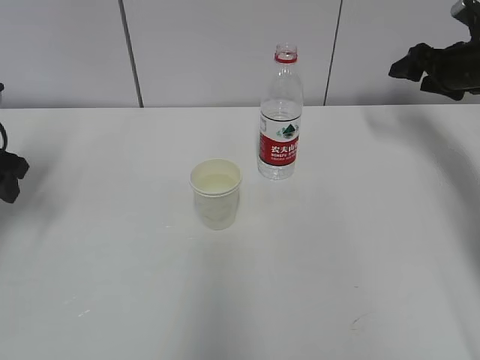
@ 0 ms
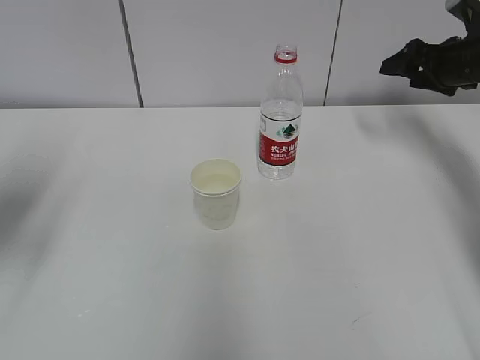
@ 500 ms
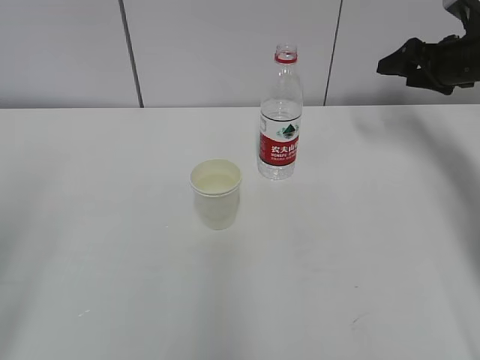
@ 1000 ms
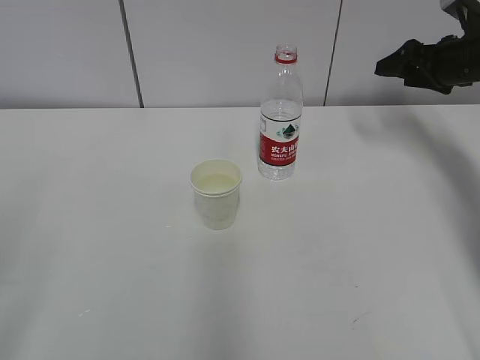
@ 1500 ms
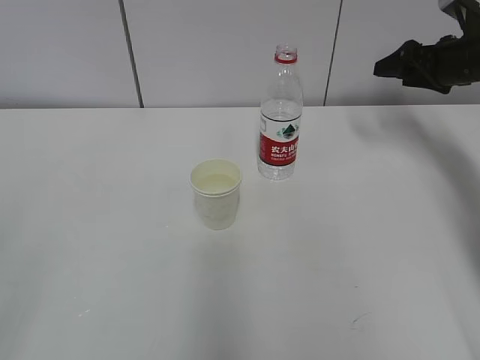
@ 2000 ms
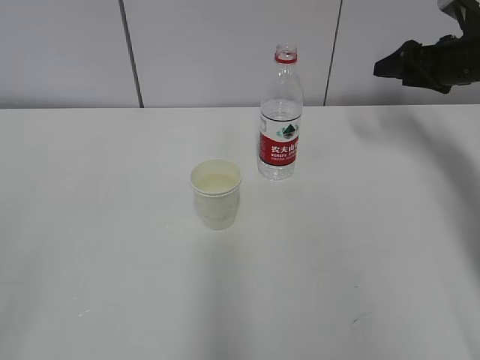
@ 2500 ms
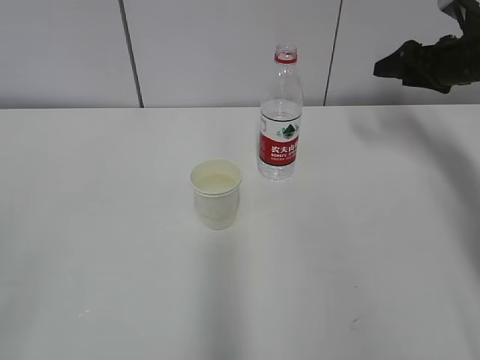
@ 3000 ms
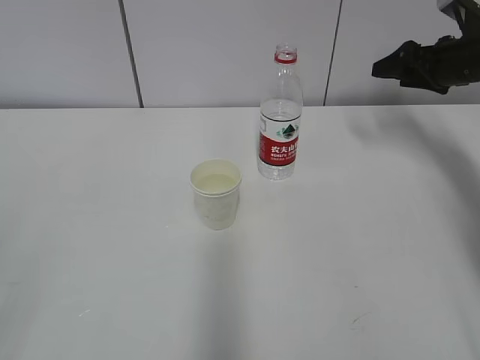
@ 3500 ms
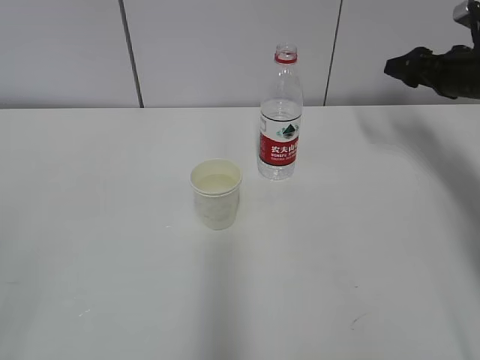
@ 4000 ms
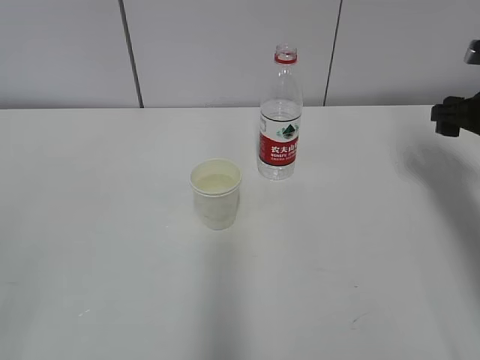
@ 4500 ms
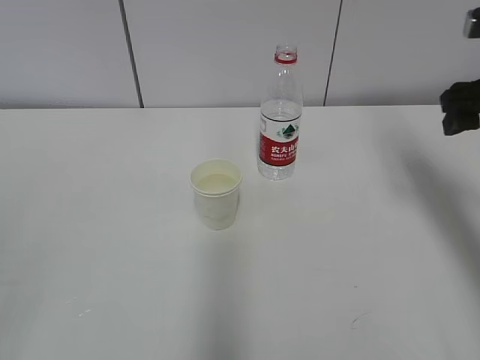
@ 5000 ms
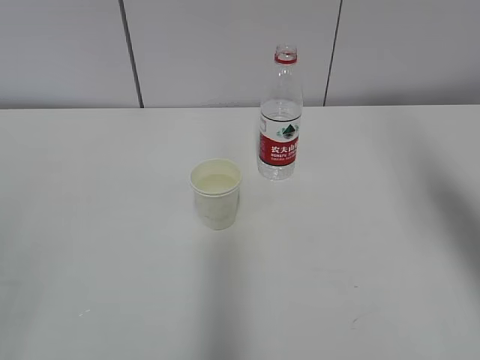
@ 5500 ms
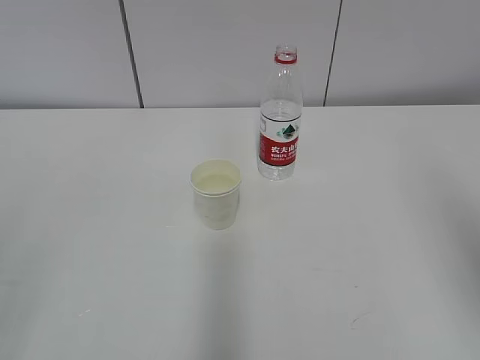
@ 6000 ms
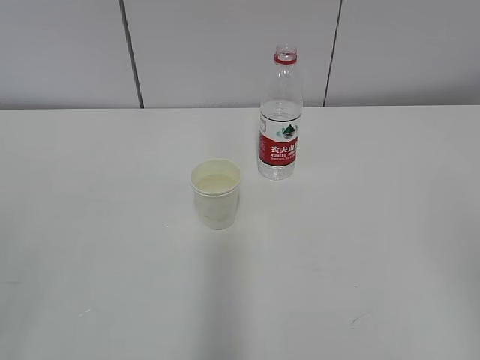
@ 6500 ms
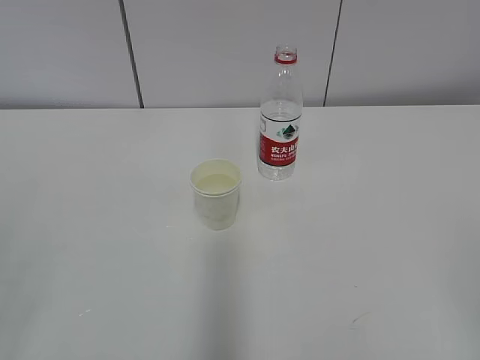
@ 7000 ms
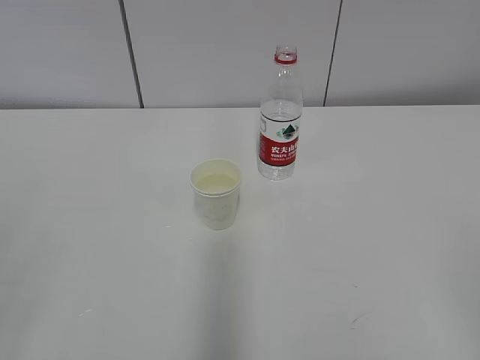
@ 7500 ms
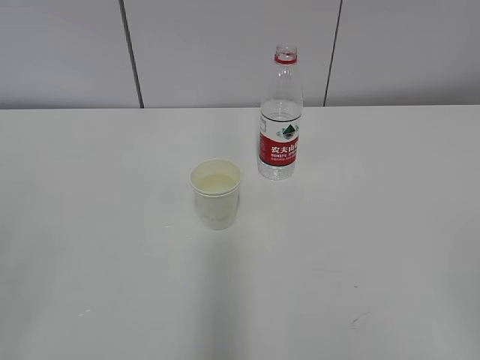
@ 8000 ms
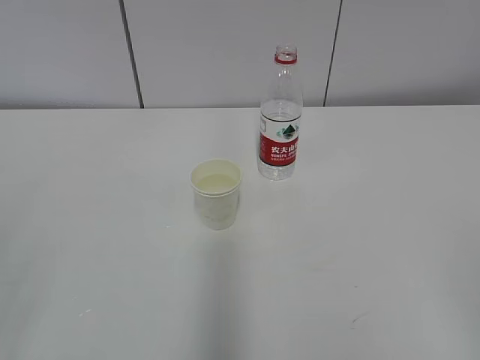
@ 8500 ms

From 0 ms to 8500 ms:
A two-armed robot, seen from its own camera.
From 0 ms to 2000 ms: The left gripper goes approximately 35 cm backward.
From 2000 ms to 4000 ms: There are only small adjustments of the grippers.
From 4000 ms to 6500 ms: The right gripper heads backward, covering roughly 40 cm.

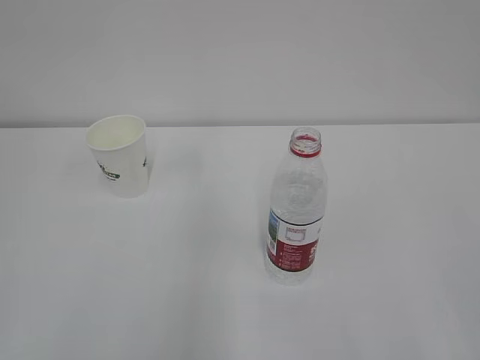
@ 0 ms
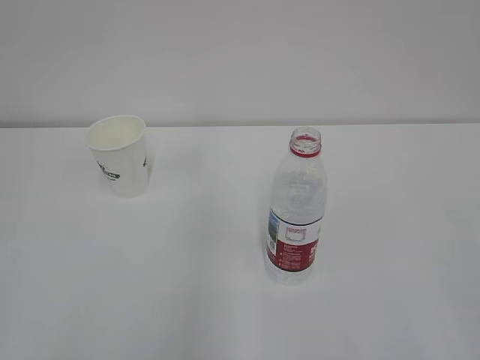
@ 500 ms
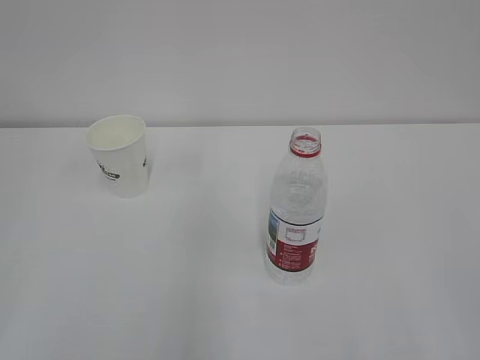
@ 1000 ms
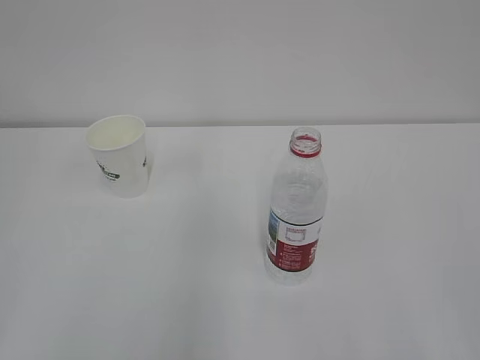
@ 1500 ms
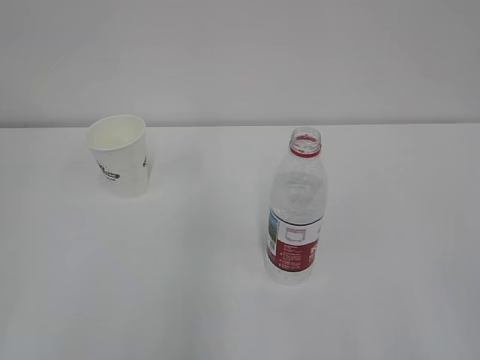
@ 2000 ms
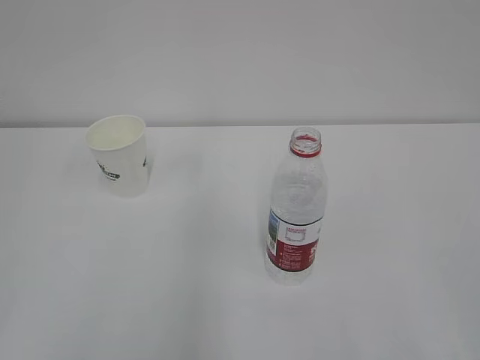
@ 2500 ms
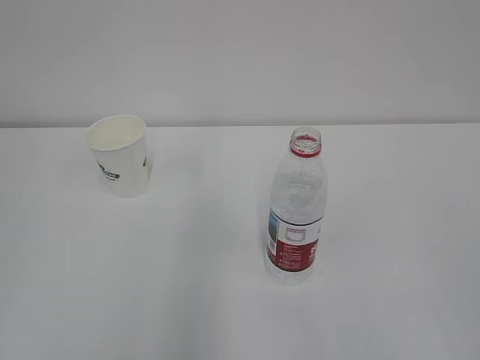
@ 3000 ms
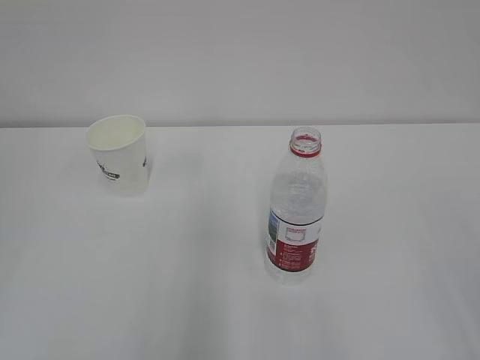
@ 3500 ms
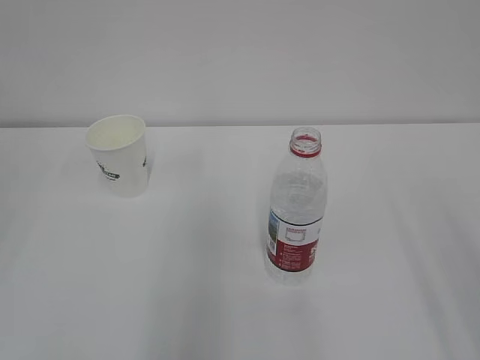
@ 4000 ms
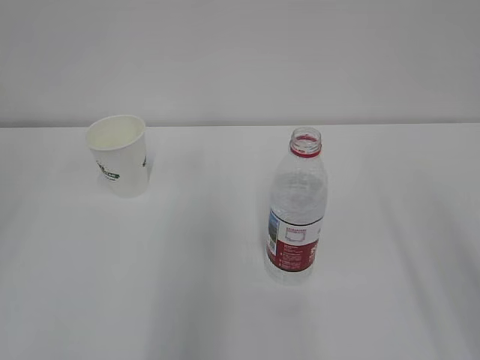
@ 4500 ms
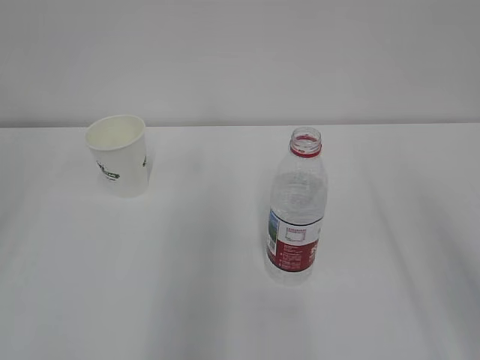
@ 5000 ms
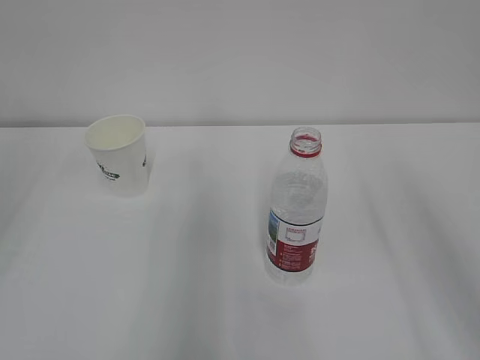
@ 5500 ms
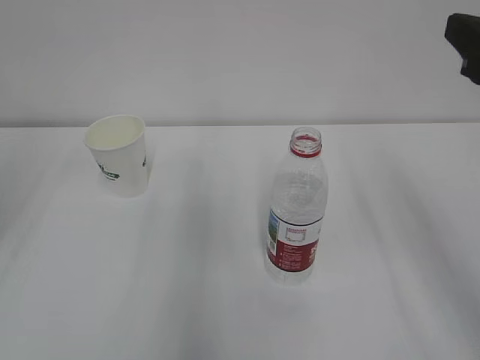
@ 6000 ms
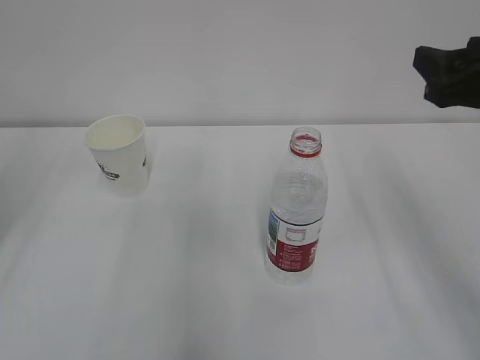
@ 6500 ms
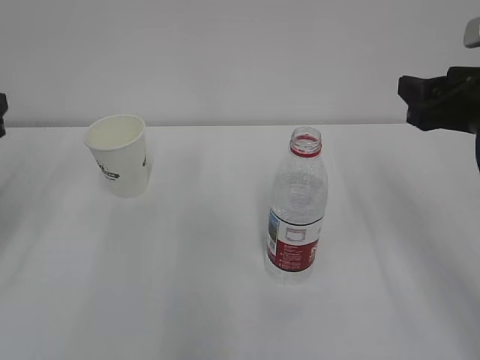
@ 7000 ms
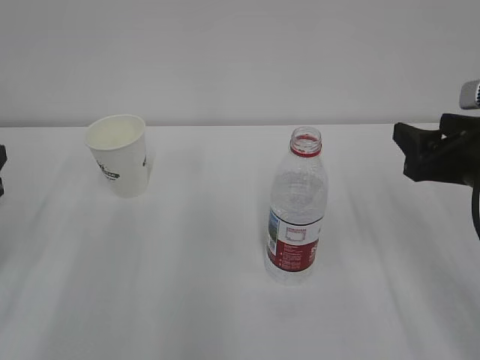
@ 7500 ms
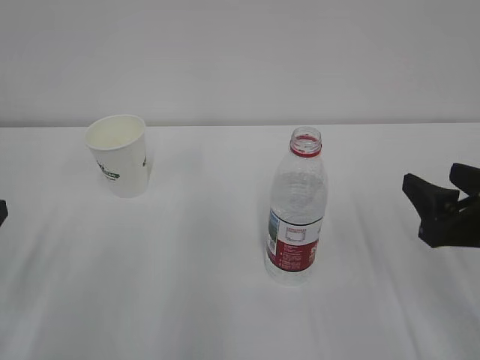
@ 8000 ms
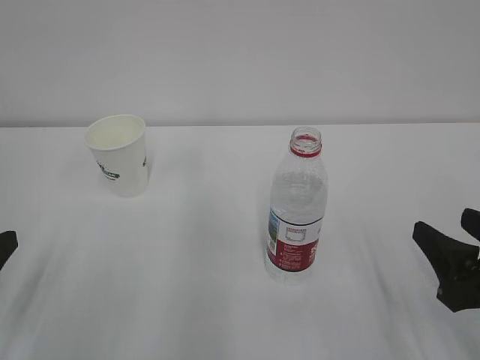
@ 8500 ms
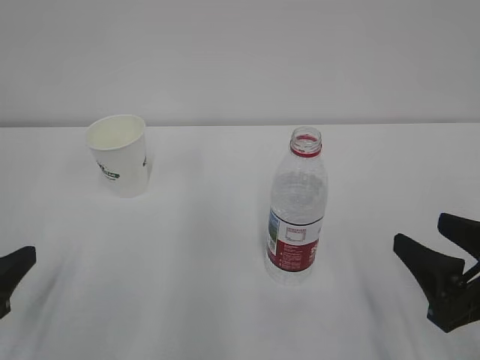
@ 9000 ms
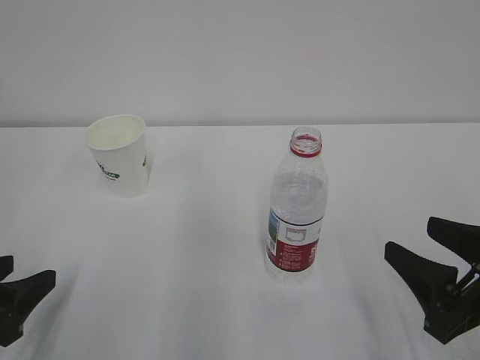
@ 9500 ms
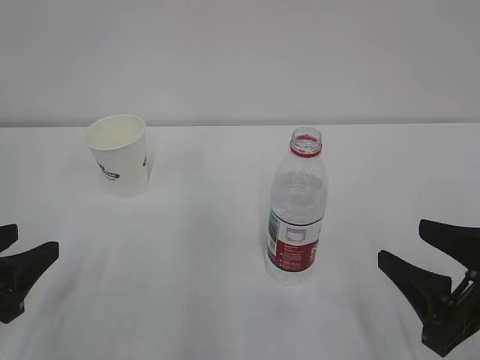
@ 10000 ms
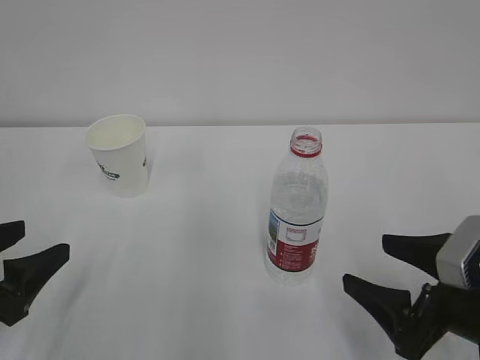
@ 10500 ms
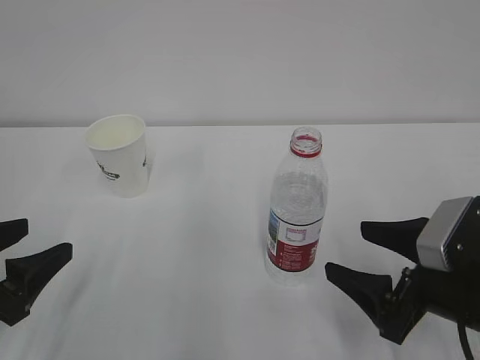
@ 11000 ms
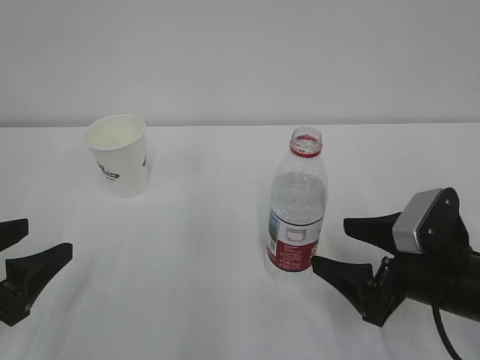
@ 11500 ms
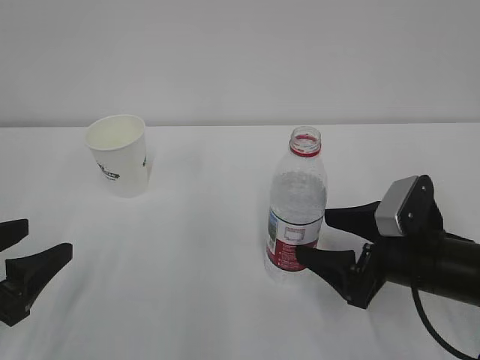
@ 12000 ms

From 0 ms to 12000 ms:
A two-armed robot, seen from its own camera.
From 4000 ms to 6000 ms: The right gripper goes approximately 15 cm forward.
From 6000 ms to 8000 ms: The right gripper travels downward by some 15 cm.
From 8000 ms to 10000 ms: The right gripper goes some 5 cm backward.
From 10000 ms to 12000 ms: The right gripper moves forward, some 10 cm, and opens its fingers.

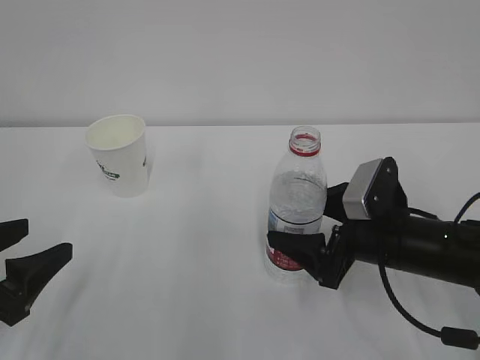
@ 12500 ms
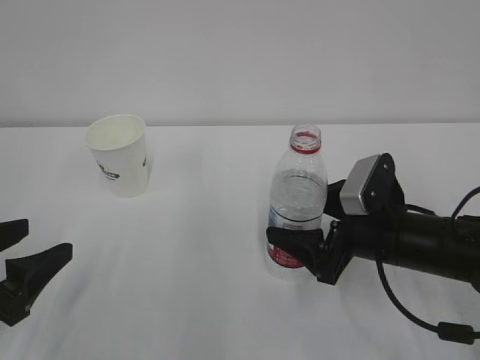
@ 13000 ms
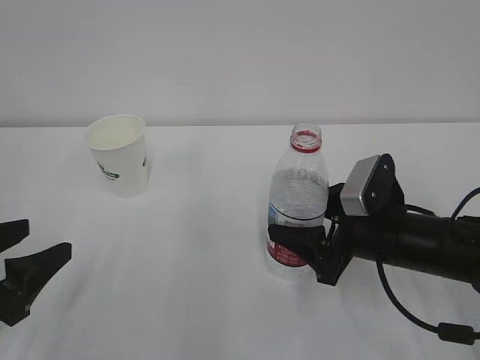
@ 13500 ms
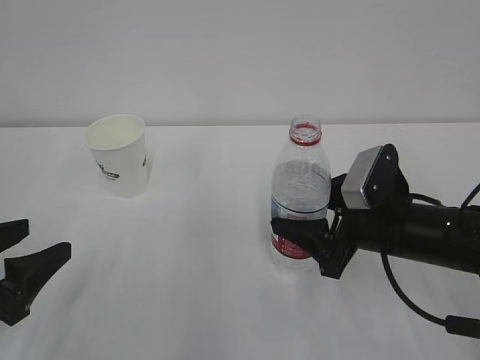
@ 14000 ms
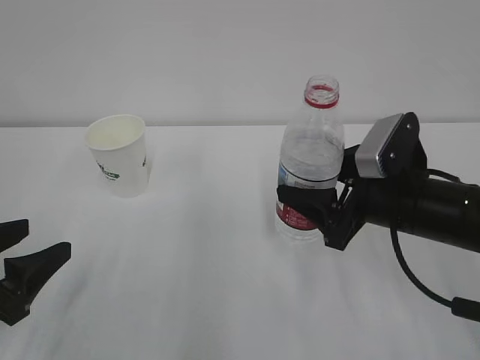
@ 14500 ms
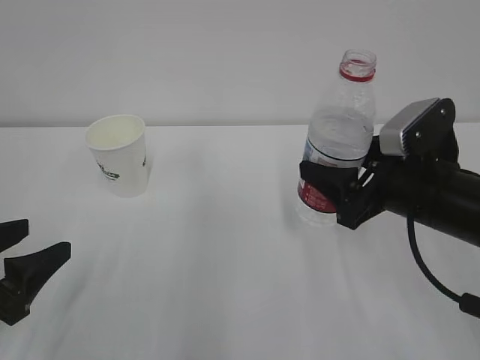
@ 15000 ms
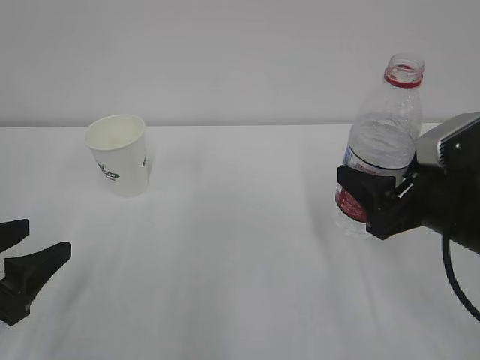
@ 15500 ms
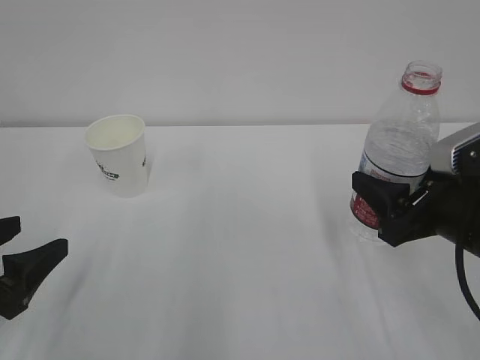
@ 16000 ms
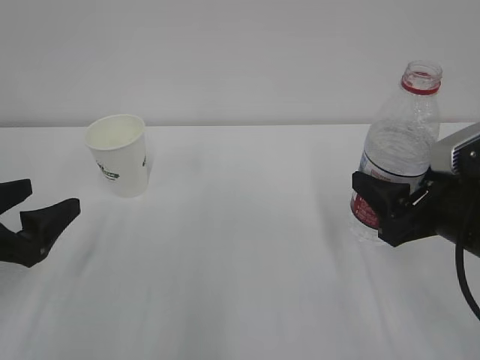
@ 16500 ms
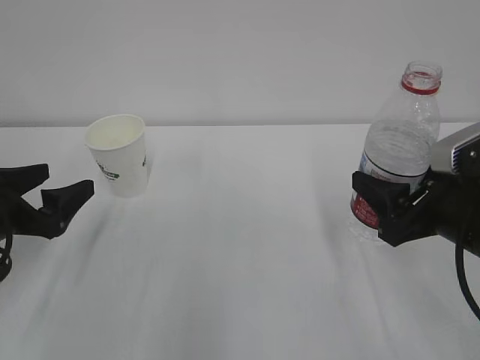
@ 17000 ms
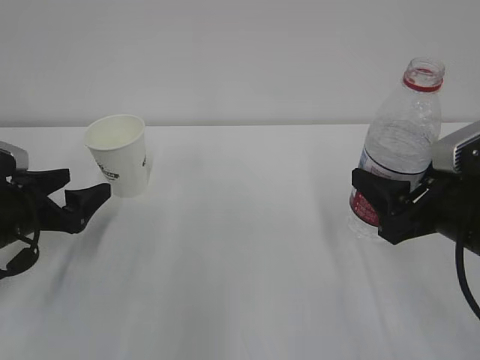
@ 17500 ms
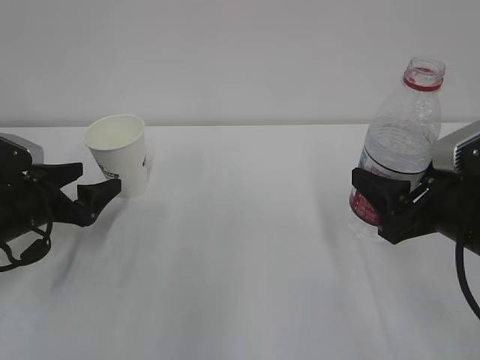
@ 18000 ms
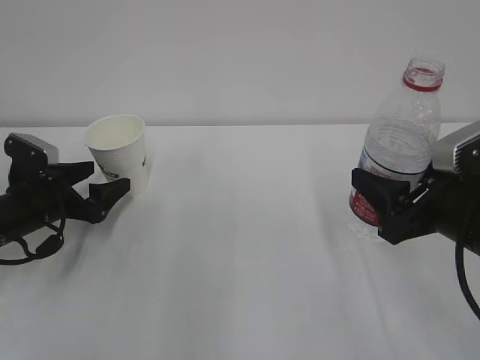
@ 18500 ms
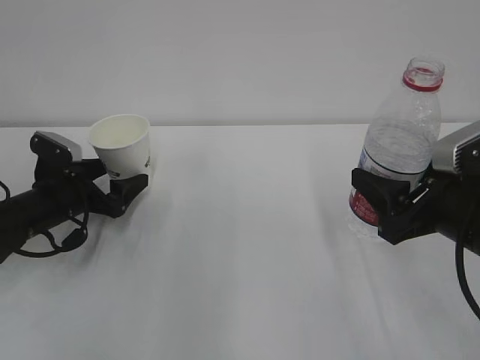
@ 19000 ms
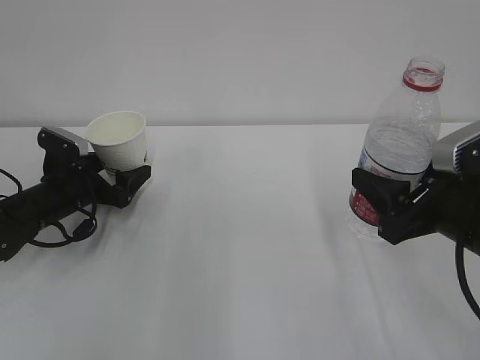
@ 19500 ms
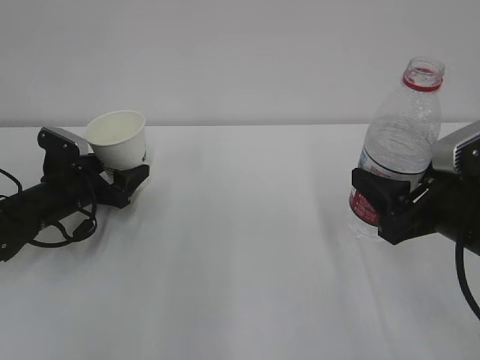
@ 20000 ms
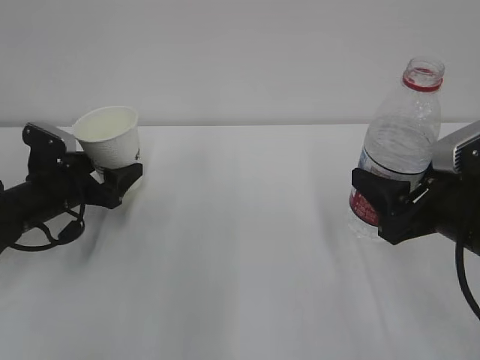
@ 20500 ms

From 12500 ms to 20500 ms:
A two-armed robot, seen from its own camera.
From 12500 ms to 14500 ms: The right gripper moves upward, some 5 cm, and closes.
From 14500 ms to 16500 ms: The left gripper opens its fingers. The right gripper changes place by roughly 5 cm.
From 16500 ms to 18500 ms: The left gripper is displaced forward and downward by some 15 cm.
From 18500 ms to 20500 ms: The left gripper closes up.
